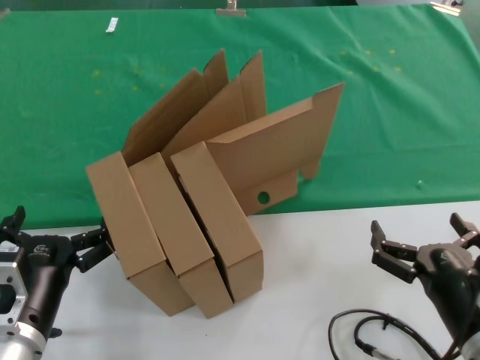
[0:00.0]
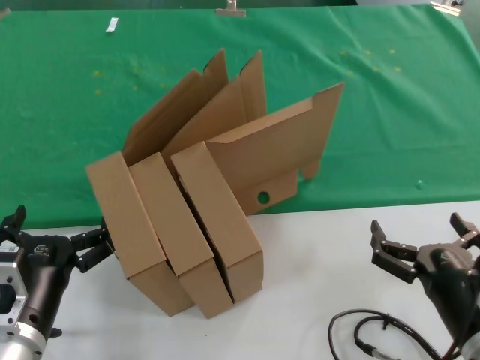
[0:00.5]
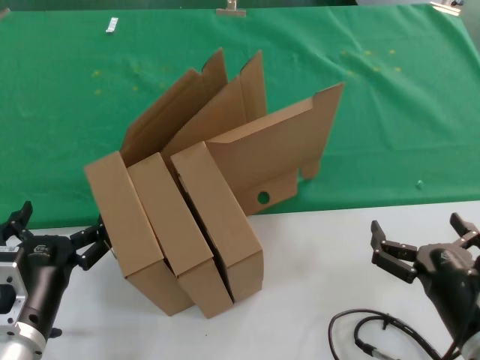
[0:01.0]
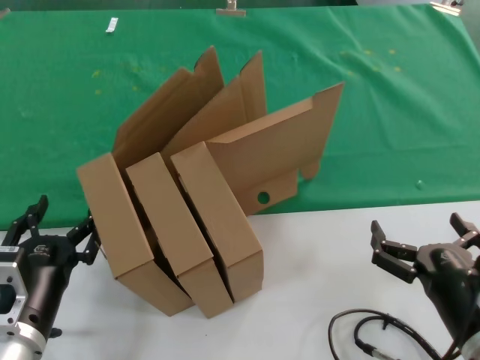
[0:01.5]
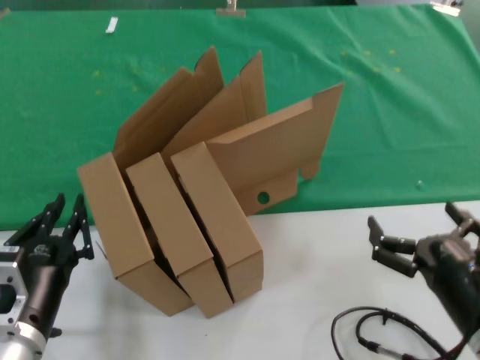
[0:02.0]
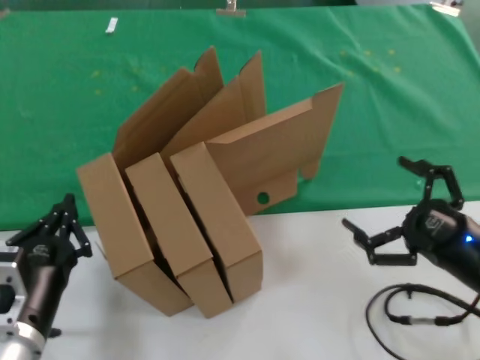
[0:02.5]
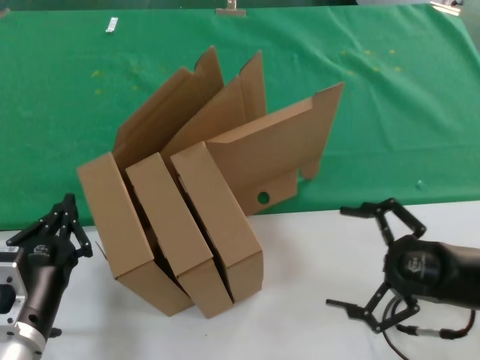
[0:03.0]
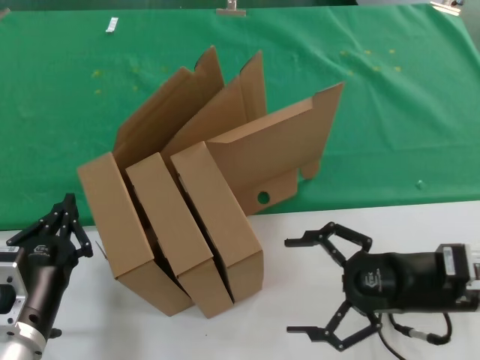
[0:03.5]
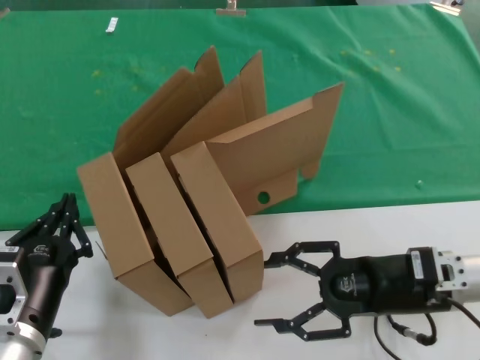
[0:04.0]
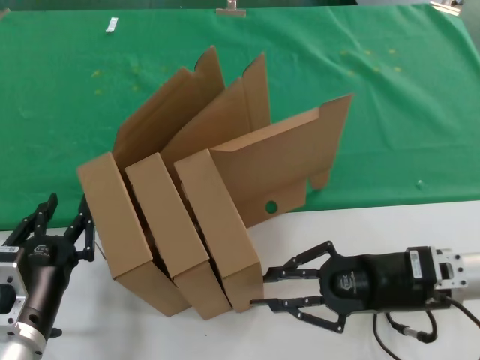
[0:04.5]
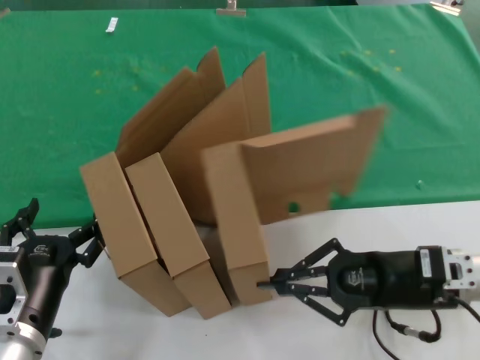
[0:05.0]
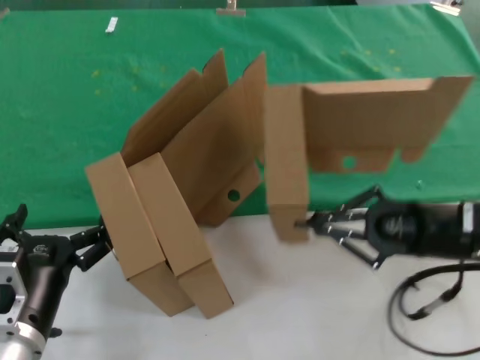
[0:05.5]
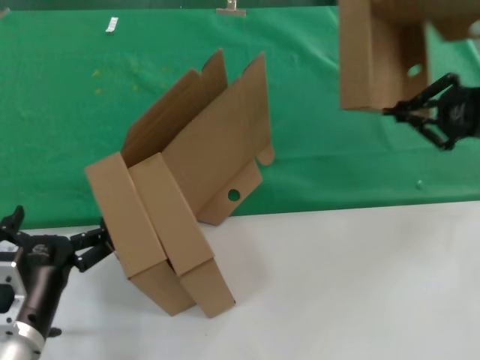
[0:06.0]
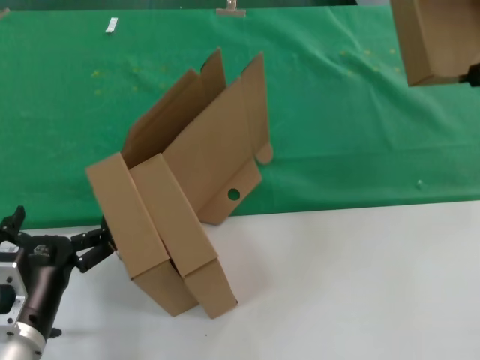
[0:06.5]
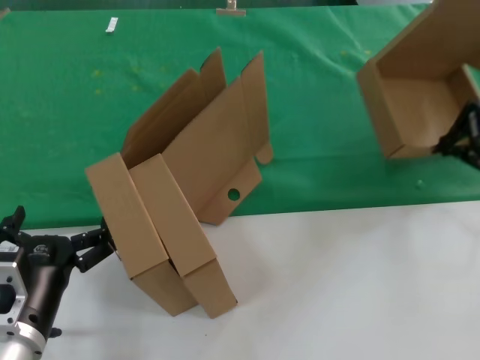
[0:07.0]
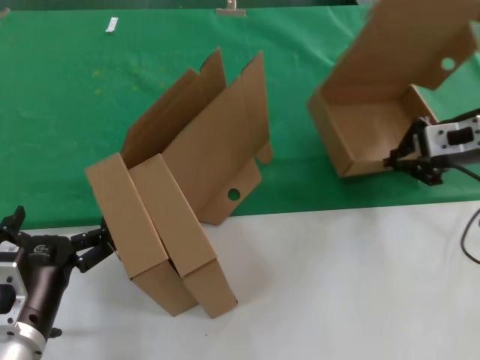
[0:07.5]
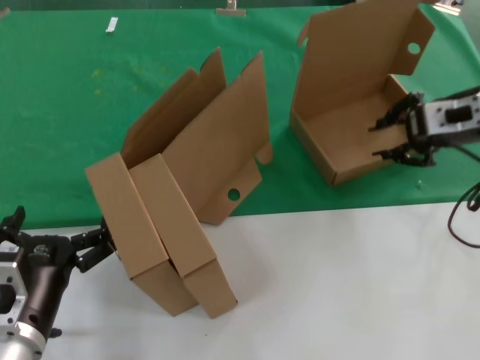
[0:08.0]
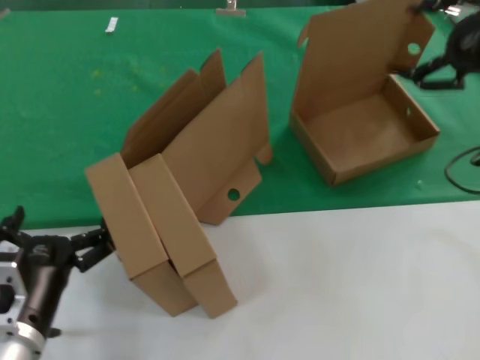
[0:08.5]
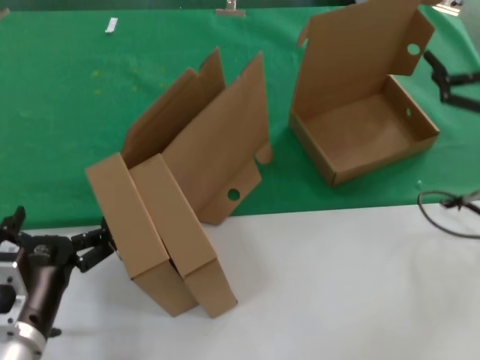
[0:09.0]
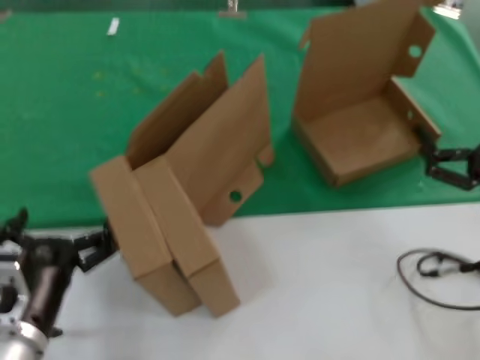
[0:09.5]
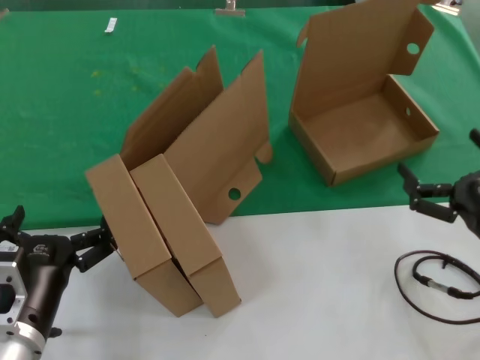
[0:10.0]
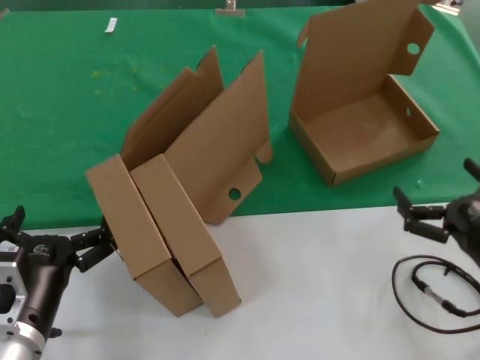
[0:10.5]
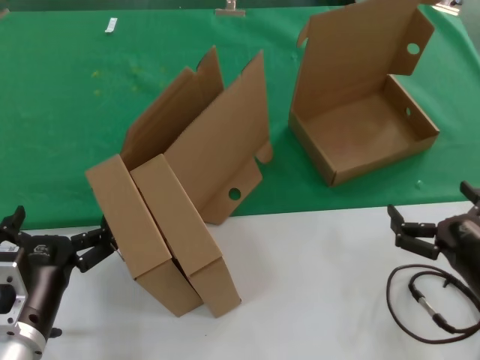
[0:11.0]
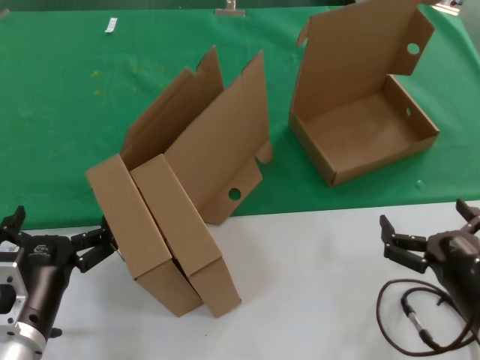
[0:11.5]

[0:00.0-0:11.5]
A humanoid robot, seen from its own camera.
Task of the whole recording: pick up the paper box and put it at the back.
Step, 0:00.0 to 0:04.5: Grasp the paper box.
Step, 0:05.0 to 0:07.5: Place the paper box on the table.
0:00.0 to 0:02.0: There are only small adjustments of the hands.
0:02.0 to 0:04.0: The right hand goes some 15 cm forward.
0:04.0 to 0:06.0: The right hand goes approximately 20 cm upward and to the right.
0:06.0 to 0:07.5: The right hand travels to the left by about 5 cm, and moves some 10 cm upward and comes back.
0:07.5 to 0:09.5: The right hand moves downward and backward, approximately 25 cm.
0:09.5 to 0:11.5: The right hand moves to the left and backward, roughly 10 cm.
